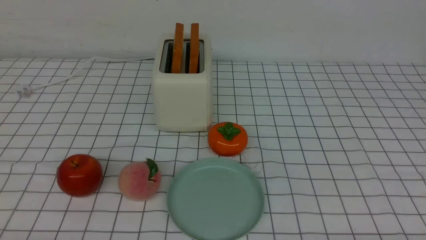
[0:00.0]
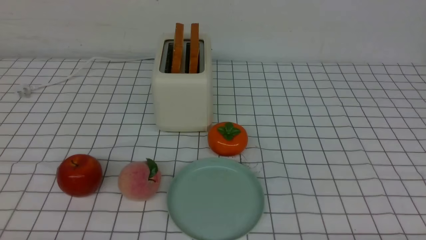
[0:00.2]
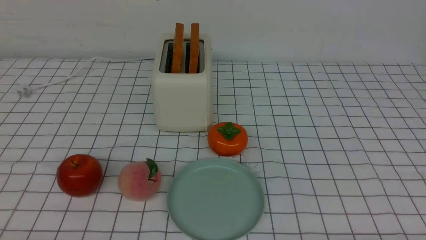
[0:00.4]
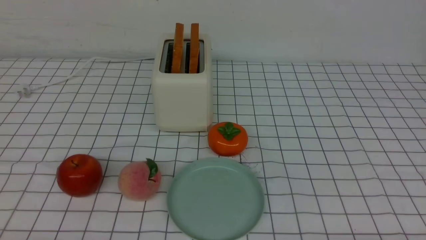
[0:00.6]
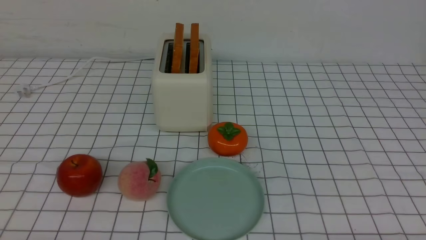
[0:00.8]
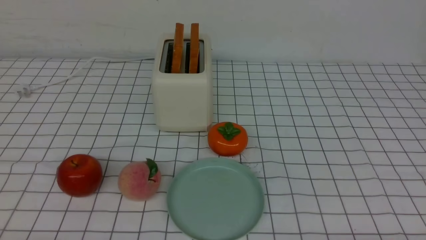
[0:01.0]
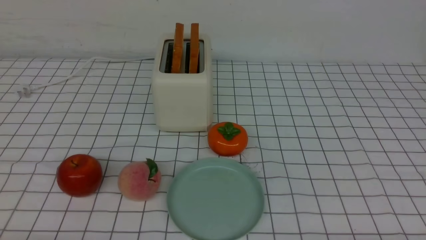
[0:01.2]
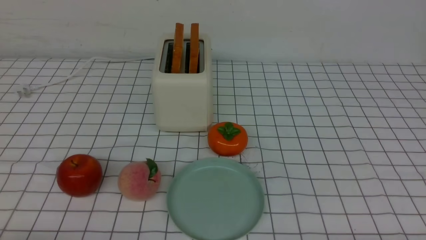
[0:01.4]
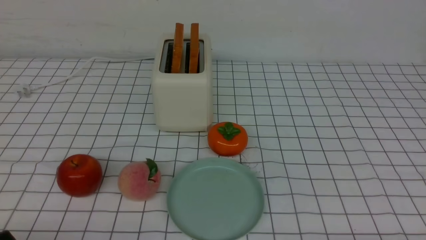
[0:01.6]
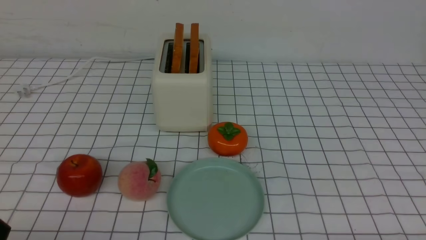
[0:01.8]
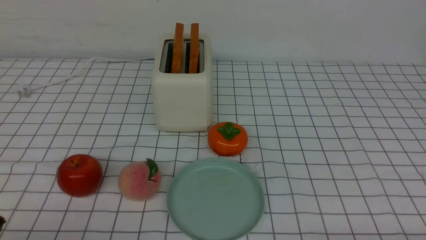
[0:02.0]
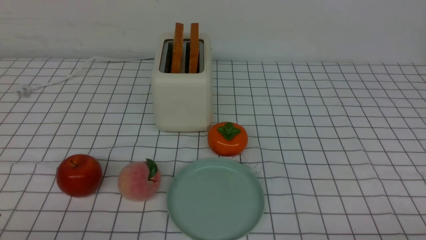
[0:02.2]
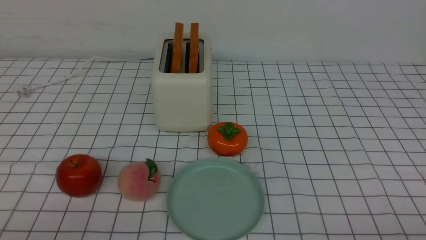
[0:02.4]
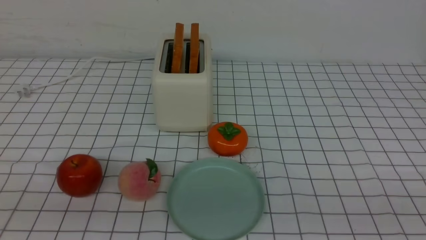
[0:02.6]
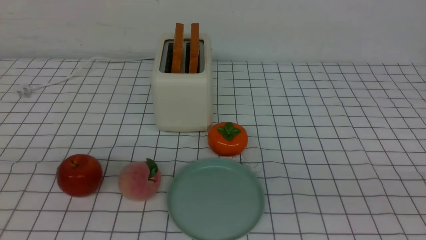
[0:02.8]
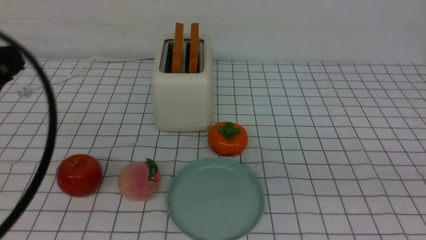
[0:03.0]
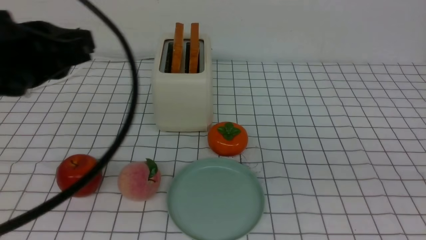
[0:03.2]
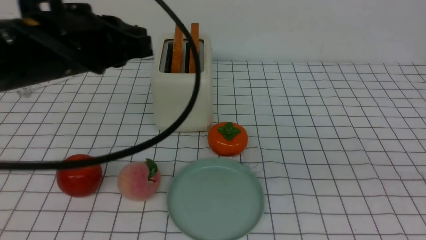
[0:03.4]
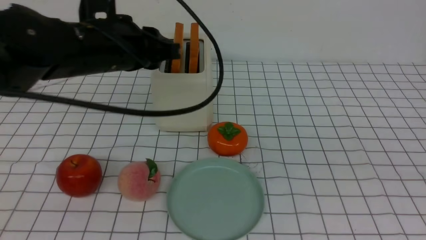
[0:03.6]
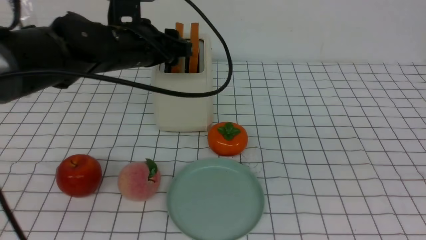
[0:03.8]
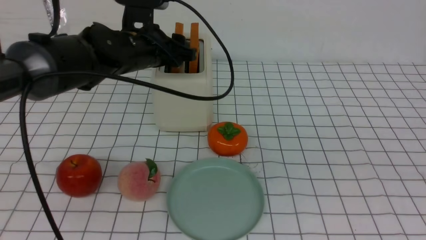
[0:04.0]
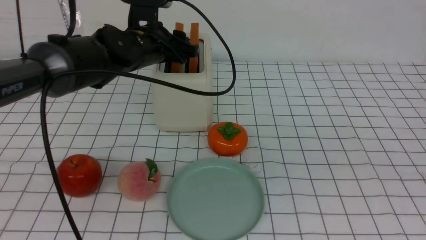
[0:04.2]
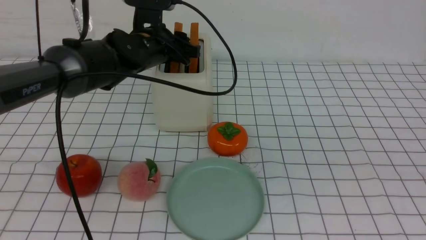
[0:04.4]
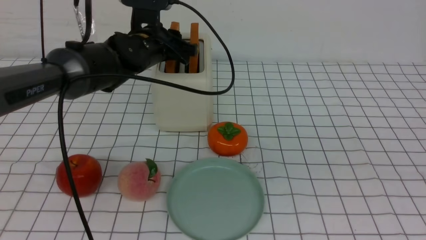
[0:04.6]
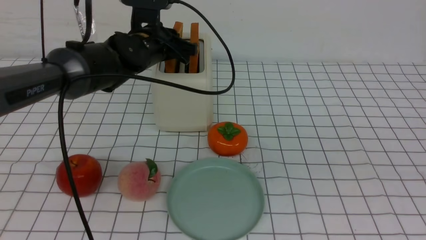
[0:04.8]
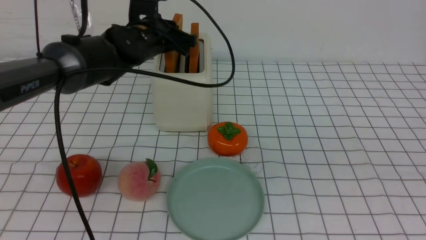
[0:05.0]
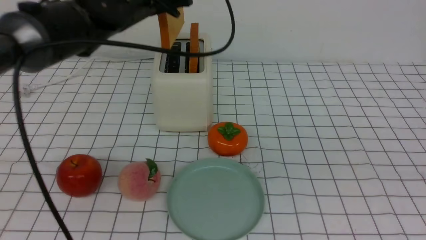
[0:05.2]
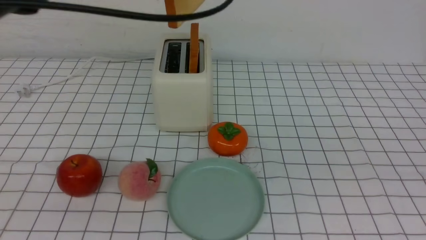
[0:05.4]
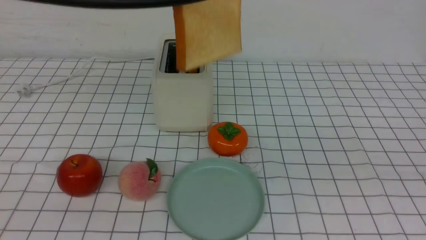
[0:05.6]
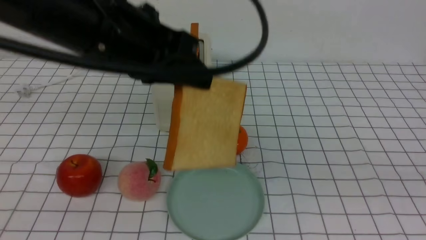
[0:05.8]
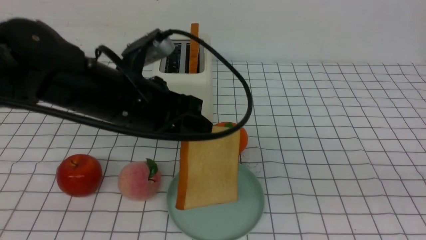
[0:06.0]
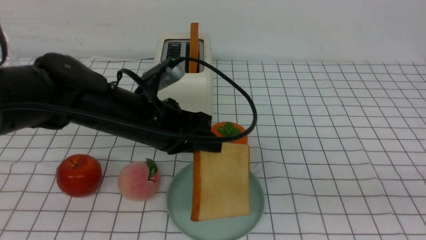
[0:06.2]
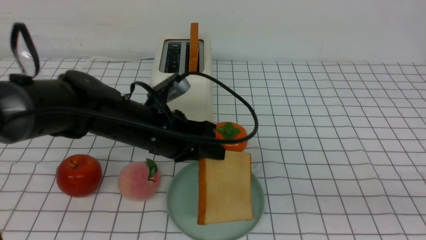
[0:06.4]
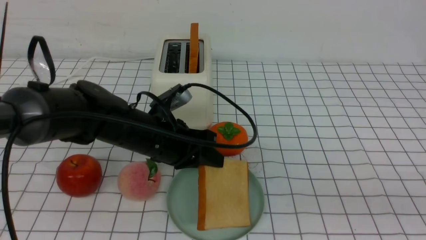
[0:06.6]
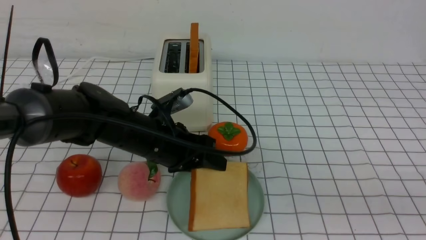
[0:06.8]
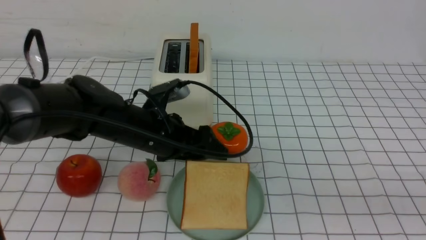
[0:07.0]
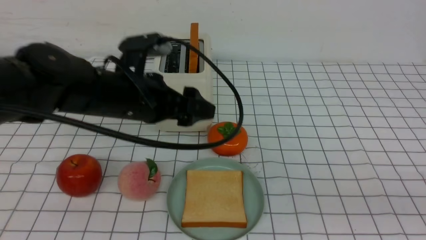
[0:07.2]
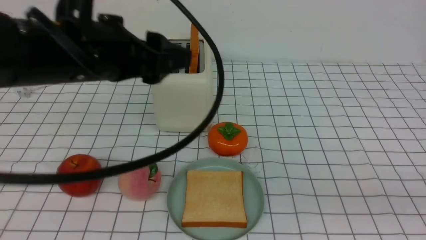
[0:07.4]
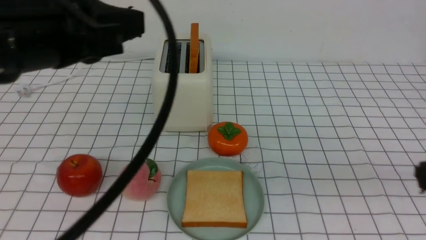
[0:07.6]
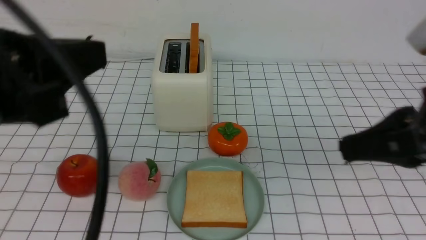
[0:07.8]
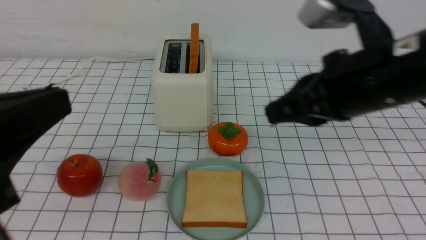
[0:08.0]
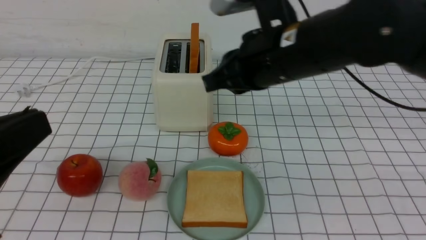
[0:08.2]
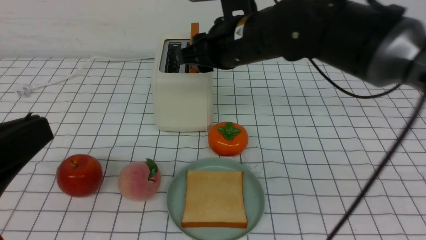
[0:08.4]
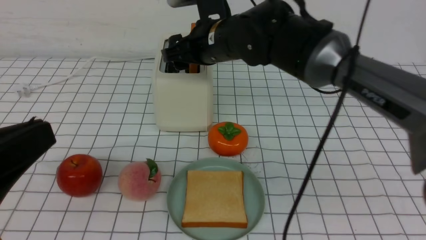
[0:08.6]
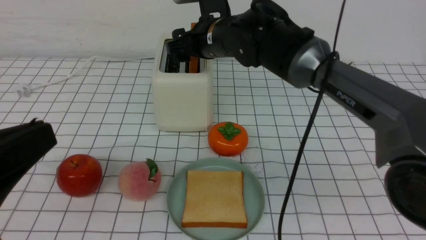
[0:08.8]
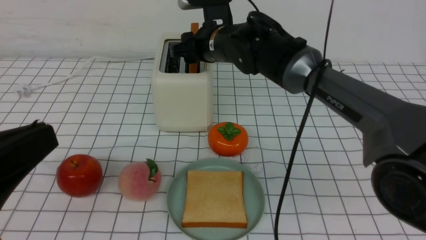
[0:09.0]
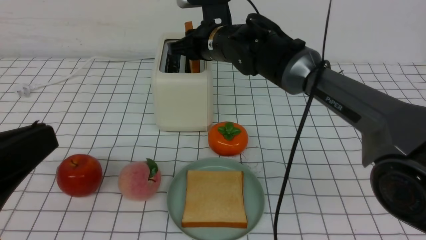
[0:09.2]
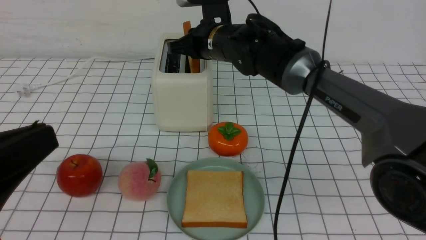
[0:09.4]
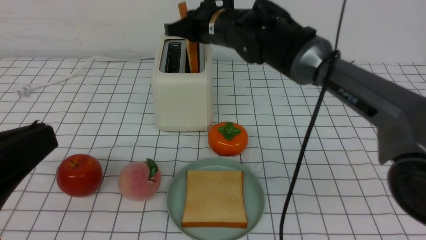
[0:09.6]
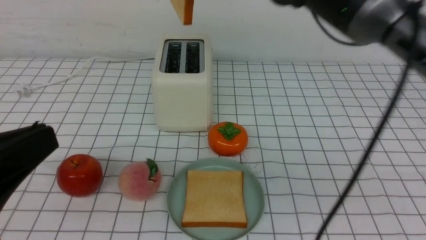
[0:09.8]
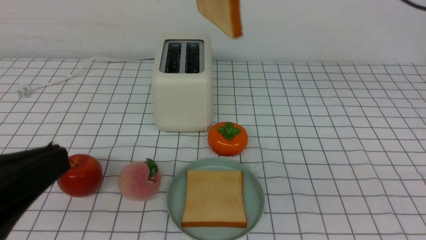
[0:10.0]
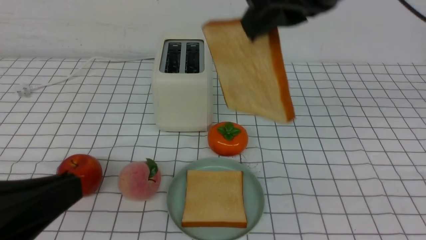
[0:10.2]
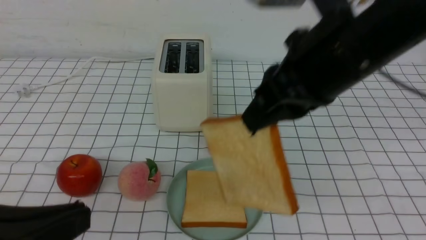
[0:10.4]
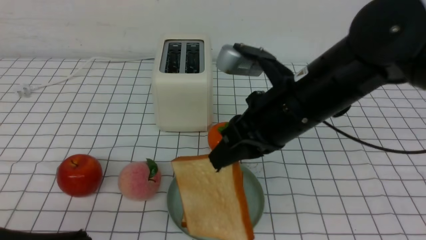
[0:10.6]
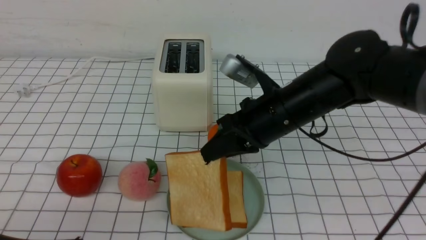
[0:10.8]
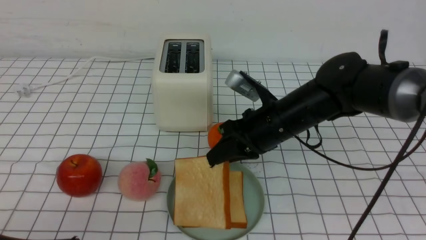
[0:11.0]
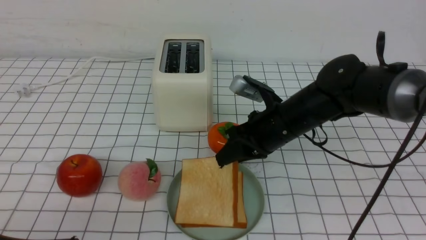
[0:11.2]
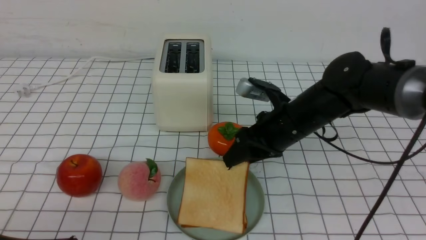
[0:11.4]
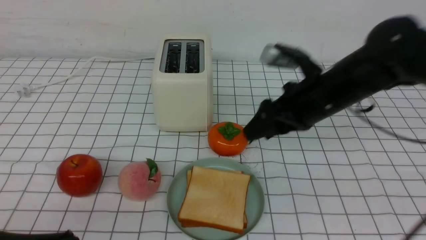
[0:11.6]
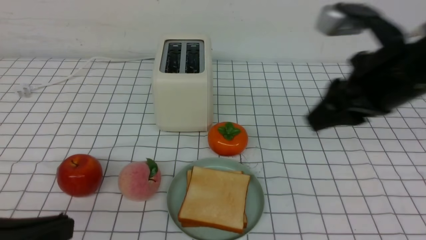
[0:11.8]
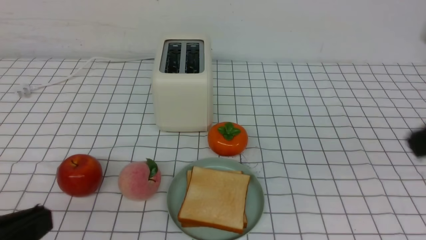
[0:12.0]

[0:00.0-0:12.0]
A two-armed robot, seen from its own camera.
Task of the whole recording: take toasted bread from bread machine on white checkered table place on plate.
Step, 0:00.0 to 0:05.0: use the left arm to take out a slice of bread.
Step, 0:05.2 to 0:07.0: use the left arm to put a slice of bread into the empty plate.
Step, 0:07.2 to 0:09.6: use the right arm to take out a slice of bread.
Step, 0:09.8 to 0:11.6: use the right arm to put a slice of bread into the plate.
0:01.6 to 0:03.0: The left gripper shifts roughly 20 cm upward and forward.
0:03.0 to 0:04.4: The left gripper shifts approximately 30 cm forward, and opens. Meanwhile the right gripper shifts by roughly 5 cm.
0:04.4 to 0:06.0: The left gripper moves backward, some 15 cm, and closes up.
0:06.0 to 0:07.6: The left gripper heads backward, upward and to the left, covering approximately 15 cm, and opens, then closes again, while the right gripper shifts by about 5 cm.
0:07.6 to 0:09.0: The right gripper shifts some 40 cm forward and to the left, and opens its fingers; the left gripper shifts approximately 10 cm backward and downward.
0:09.0 to 0:10.4: The right gripper heads backward, upward and to the right, covering approximately 25 cm, and closes its fingers.
0:10.4 to 0:12.0: The right gripper moves to the right and backward, roughly 15 cm, and opens and closes again.

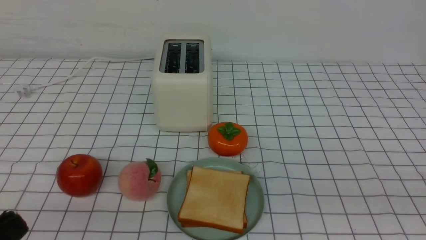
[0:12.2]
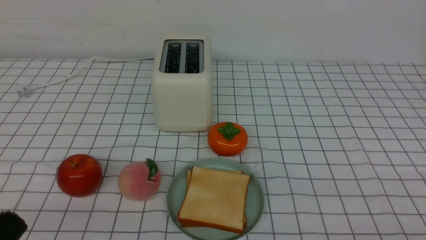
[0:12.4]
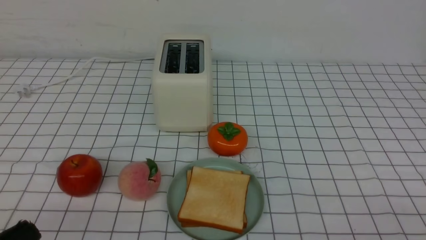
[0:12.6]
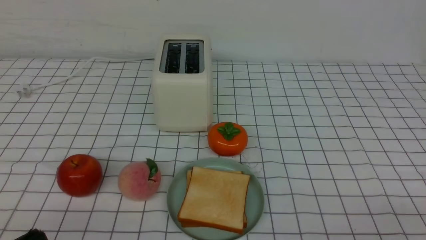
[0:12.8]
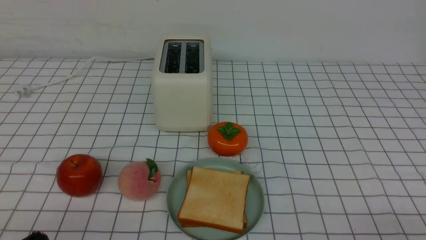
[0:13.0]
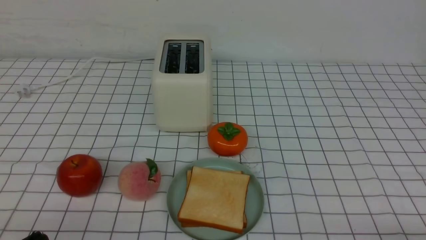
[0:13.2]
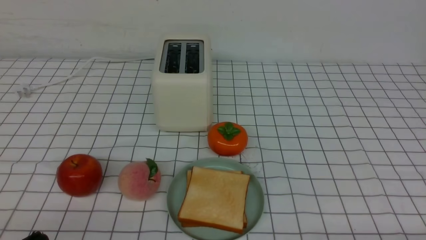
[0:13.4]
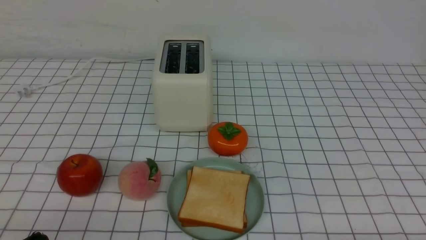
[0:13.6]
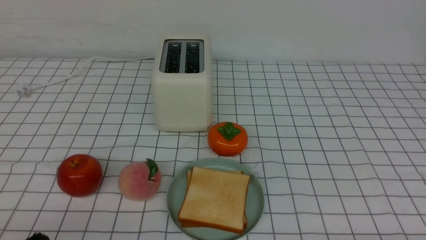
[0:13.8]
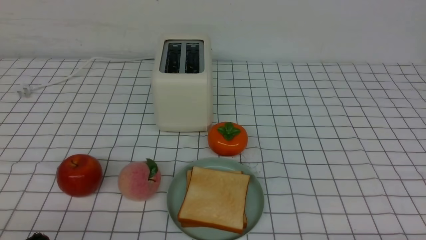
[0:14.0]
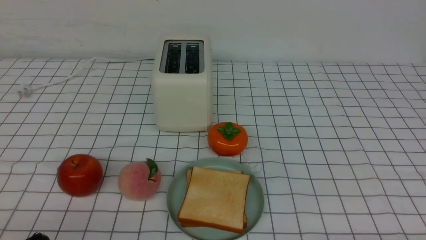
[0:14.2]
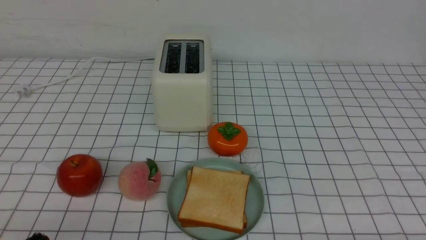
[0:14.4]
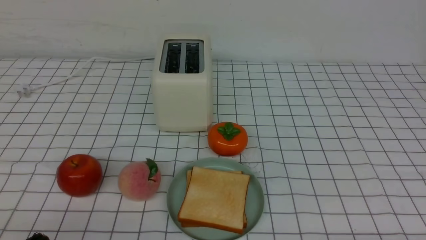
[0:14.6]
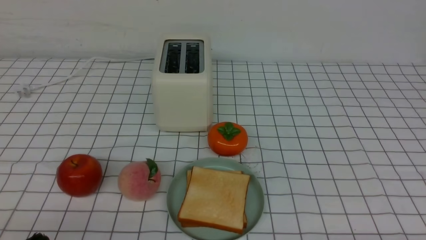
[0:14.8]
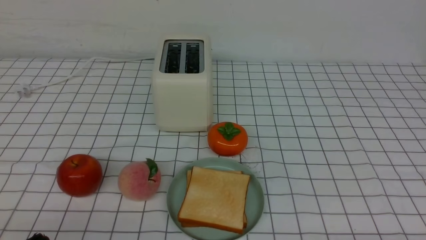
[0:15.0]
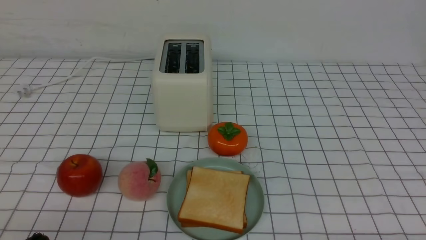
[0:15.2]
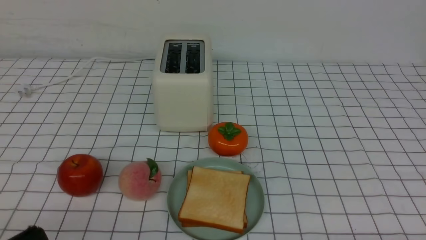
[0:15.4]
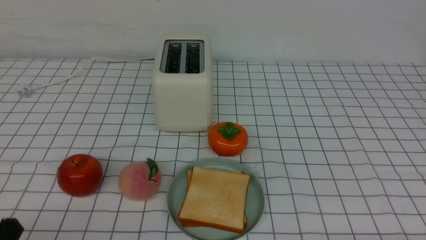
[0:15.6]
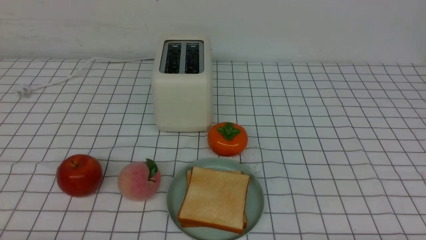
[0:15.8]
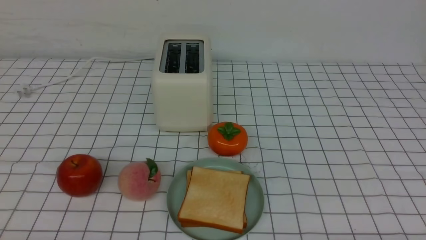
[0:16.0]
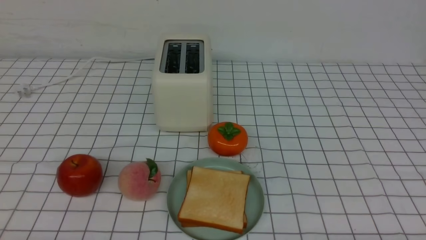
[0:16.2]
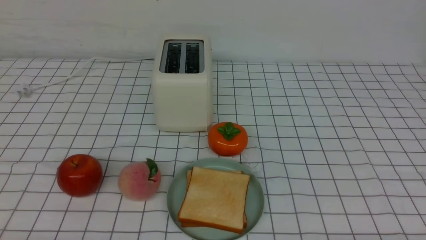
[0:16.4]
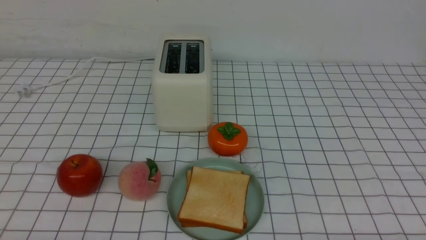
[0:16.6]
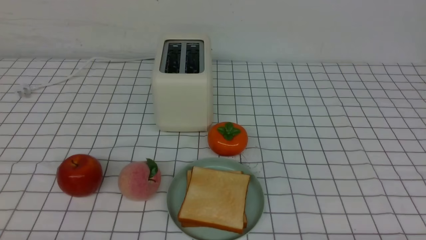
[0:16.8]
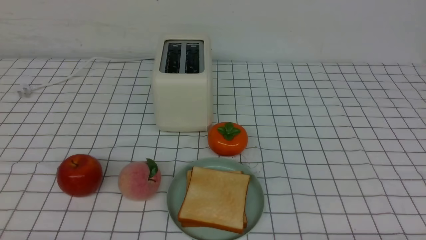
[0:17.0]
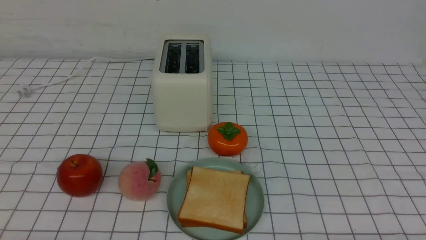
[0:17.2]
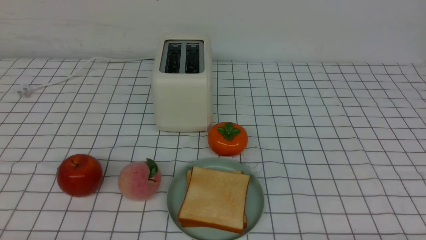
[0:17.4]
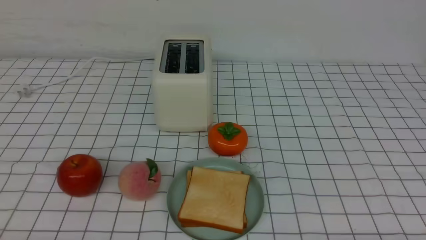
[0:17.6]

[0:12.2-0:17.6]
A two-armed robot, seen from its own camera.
Task of the whole recording: take toasted bread from bread machine on white checkered table place on plate.
0:12.2 to 0:13.6: The left gripper travels downward by some 5 cm.
0:16.2 to 0:17.6: The two grippers keep their place.
